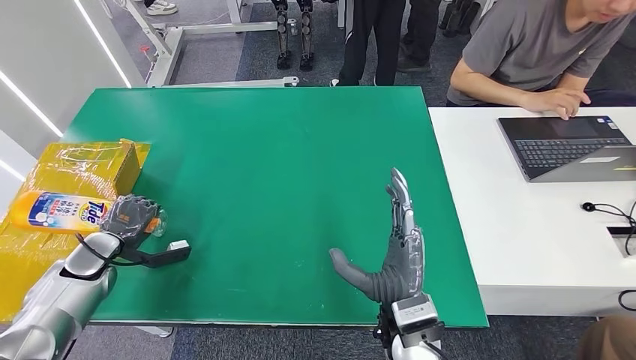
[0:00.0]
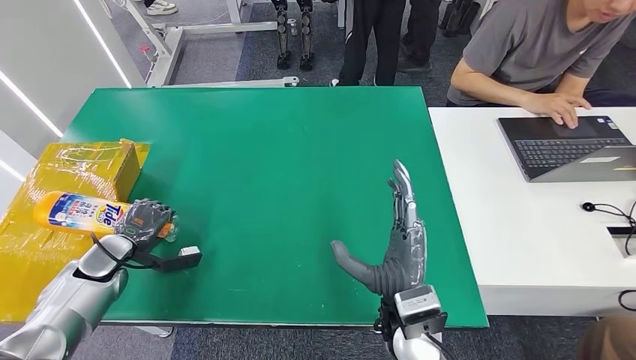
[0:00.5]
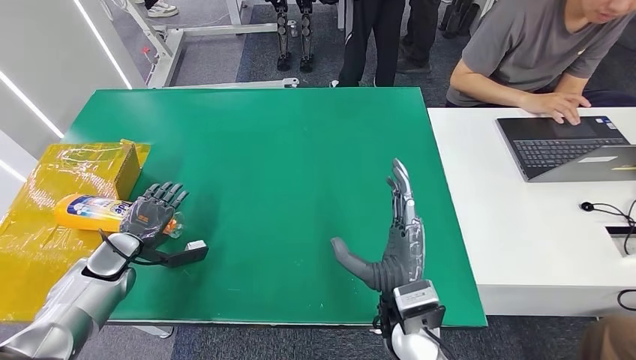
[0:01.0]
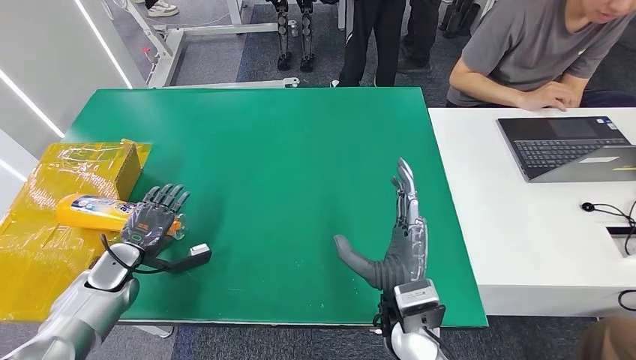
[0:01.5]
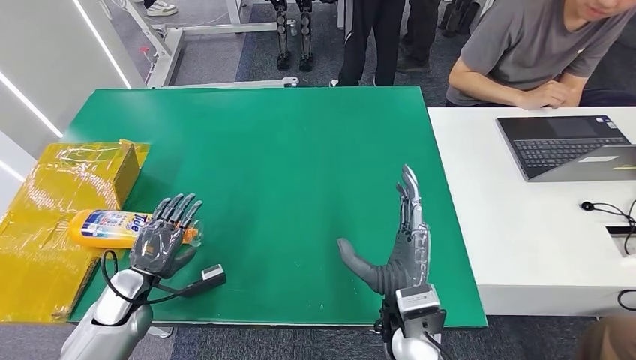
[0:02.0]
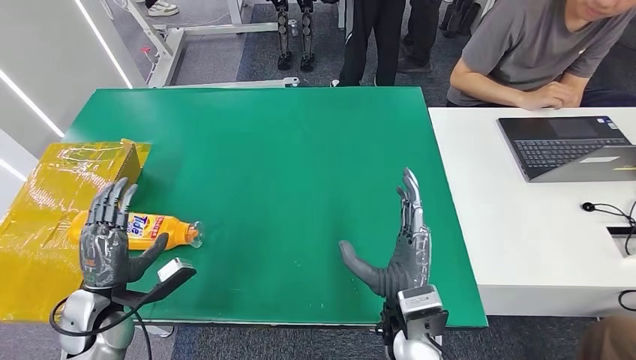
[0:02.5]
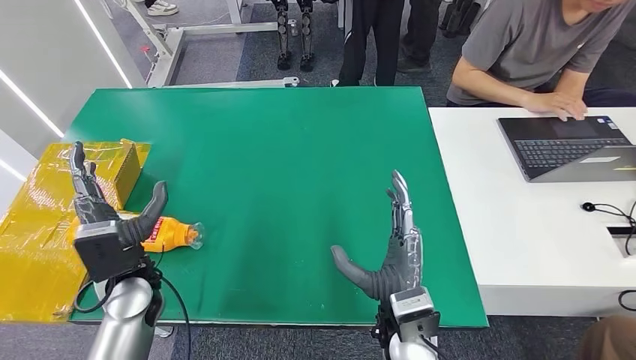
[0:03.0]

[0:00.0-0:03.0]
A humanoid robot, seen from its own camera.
Step, 0:00.0 to 0:03.0: Turn the bottle to the front side.
0:00.0 to 0:01.5: The left hand moves roughly 5 cm.
0:01.5 to 0:03.0: The left hand moves to the right and upward, roughly 15 cm.
